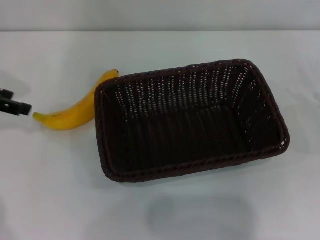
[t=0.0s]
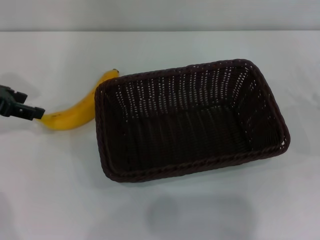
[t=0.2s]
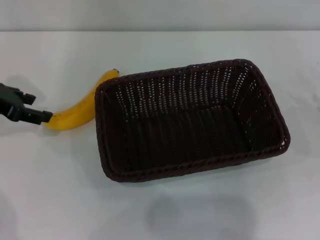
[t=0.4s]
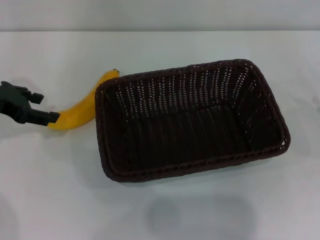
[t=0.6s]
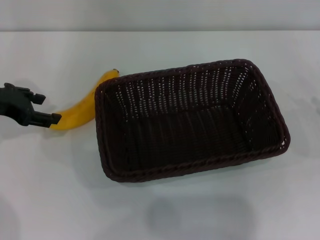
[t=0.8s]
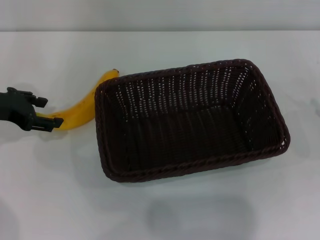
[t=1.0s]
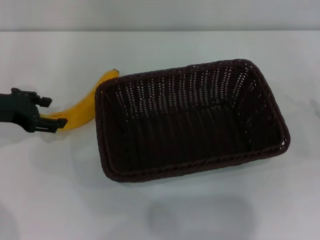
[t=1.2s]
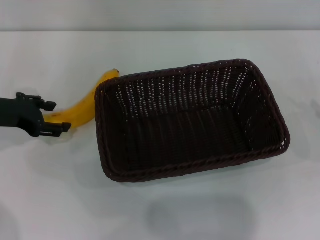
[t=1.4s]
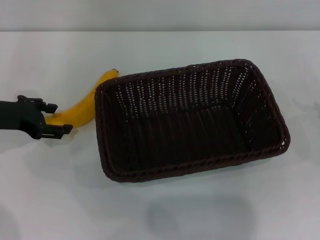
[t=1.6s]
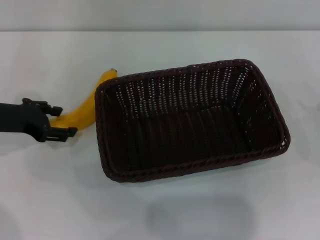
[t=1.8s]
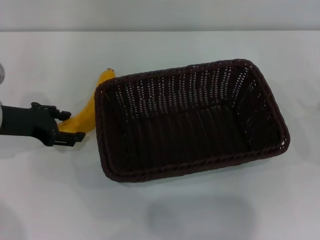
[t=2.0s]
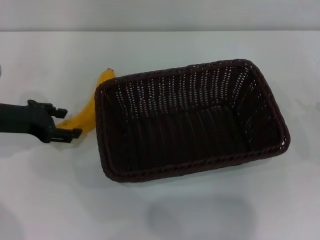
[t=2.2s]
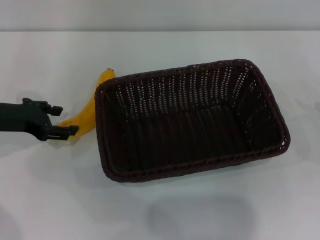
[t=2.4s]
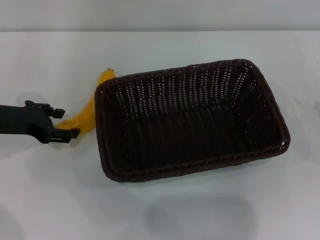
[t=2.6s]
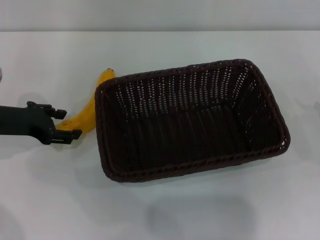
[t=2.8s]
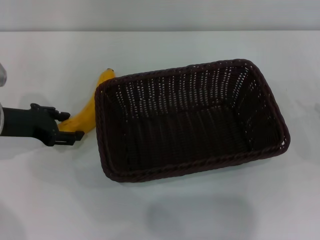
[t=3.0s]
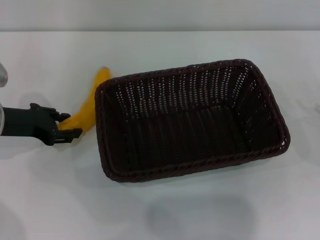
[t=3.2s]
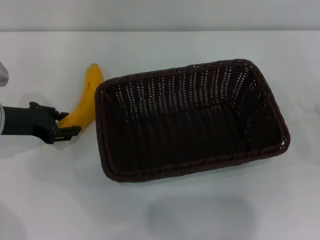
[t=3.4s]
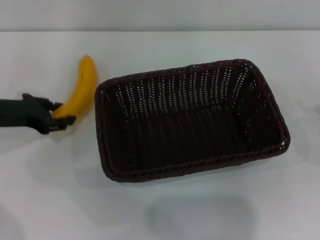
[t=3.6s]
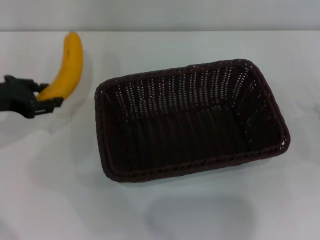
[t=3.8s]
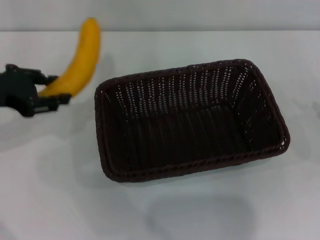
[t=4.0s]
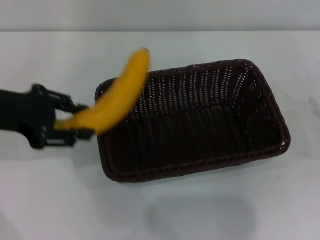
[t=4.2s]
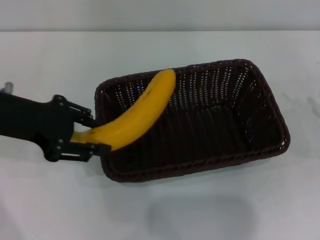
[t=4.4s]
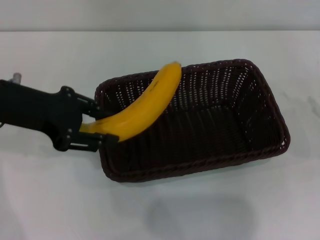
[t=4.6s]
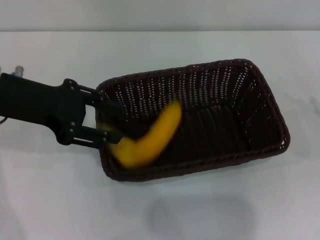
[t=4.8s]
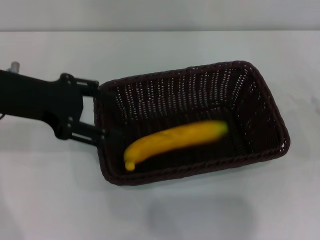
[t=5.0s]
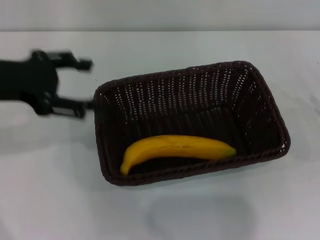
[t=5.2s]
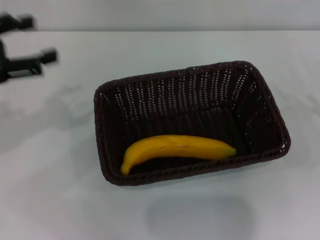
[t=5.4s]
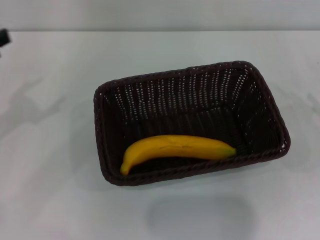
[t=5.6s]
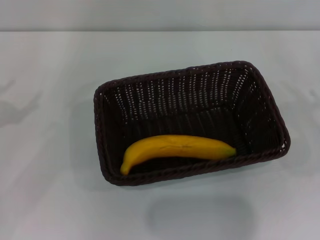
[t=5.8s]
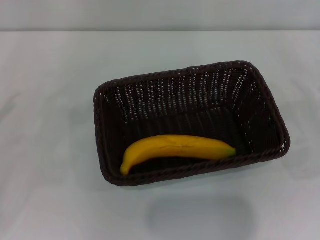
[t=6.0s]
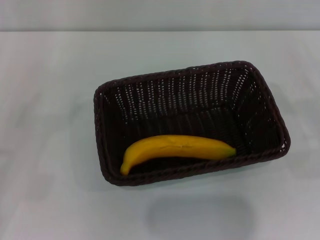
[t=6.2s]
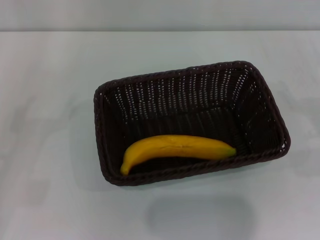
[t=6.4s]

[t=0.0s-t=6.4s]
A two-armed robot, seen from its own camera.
Step, t=0.0s to t=3.4s: Pick up the banana with the left gripper.
Step, t=3.8s to t=4.8s: Place the banana into the dark basket with the left gripper.
t=0.0s to t=1.6s: The left gripper goes about 10 cm downward.
t=1.6s to t=3.2s: The grippers move only a little.
t=3.2s to t=4.8s: The left gripper is displaced upward and to the right by about 15 cm, and closes its fingers.
t=4.8s to t=6.4s: The left gripper heads to the left, downward and backward, covering approximately 20 cm, and opens, while the right gripper opens up.

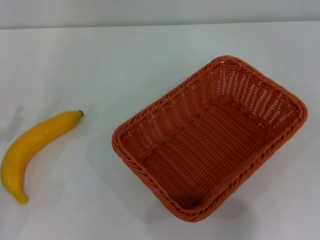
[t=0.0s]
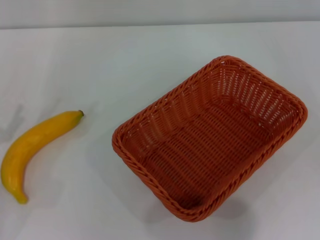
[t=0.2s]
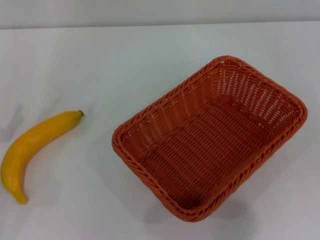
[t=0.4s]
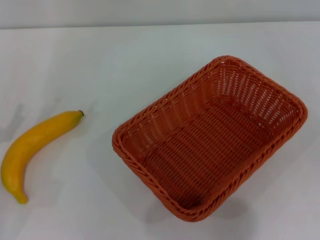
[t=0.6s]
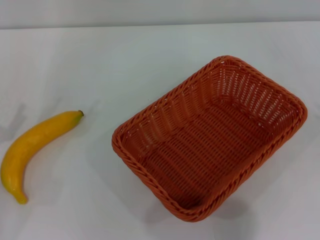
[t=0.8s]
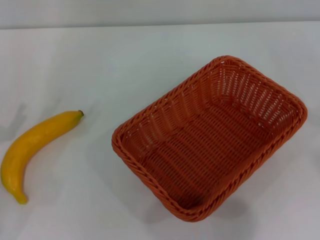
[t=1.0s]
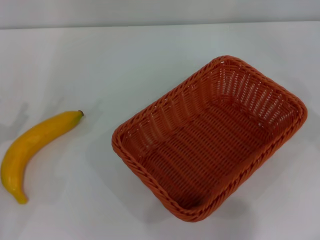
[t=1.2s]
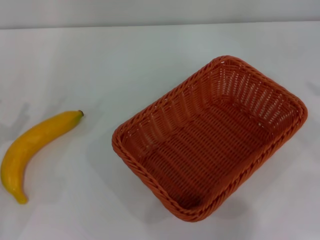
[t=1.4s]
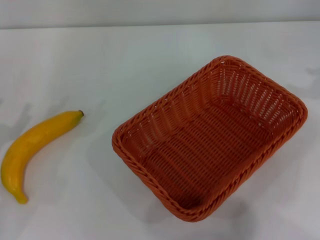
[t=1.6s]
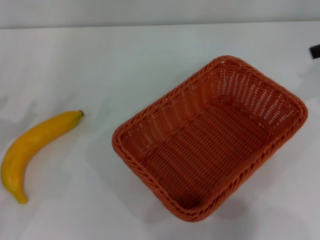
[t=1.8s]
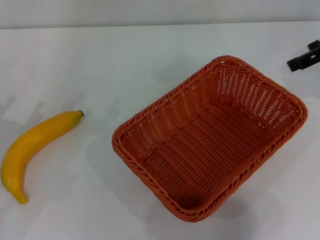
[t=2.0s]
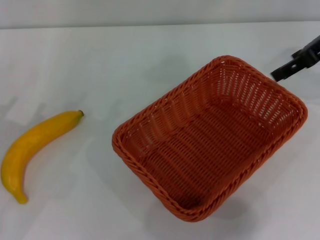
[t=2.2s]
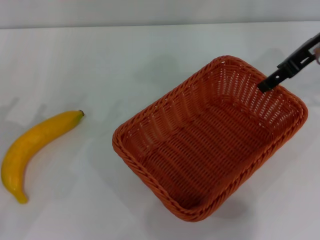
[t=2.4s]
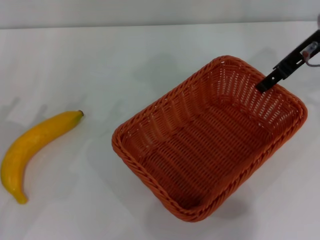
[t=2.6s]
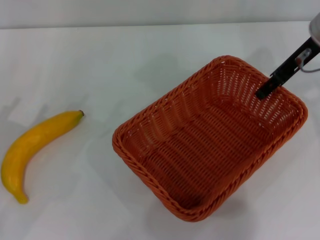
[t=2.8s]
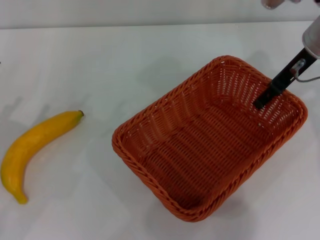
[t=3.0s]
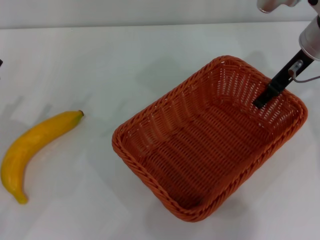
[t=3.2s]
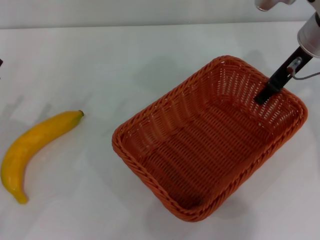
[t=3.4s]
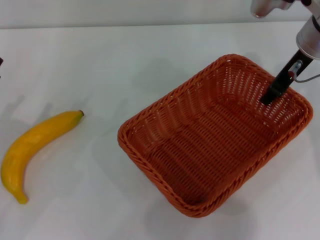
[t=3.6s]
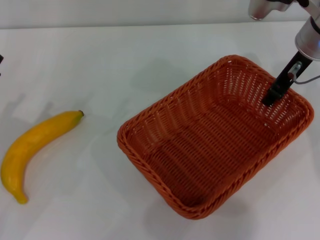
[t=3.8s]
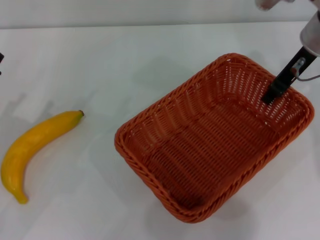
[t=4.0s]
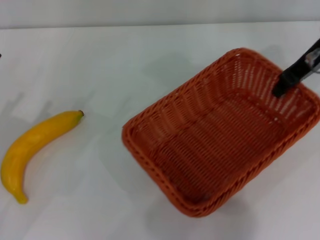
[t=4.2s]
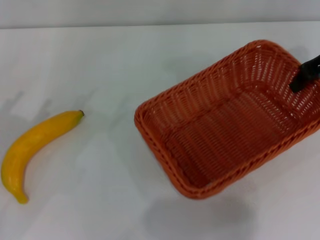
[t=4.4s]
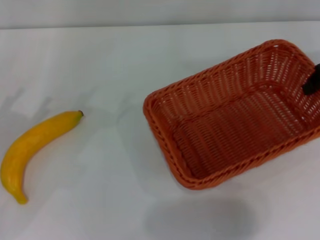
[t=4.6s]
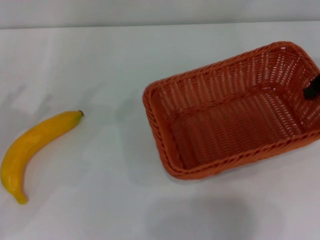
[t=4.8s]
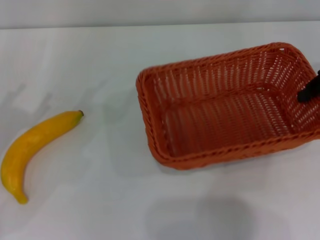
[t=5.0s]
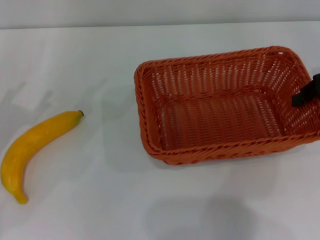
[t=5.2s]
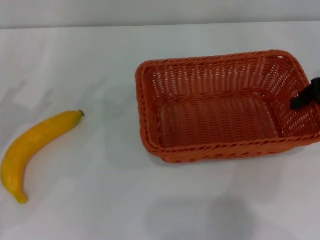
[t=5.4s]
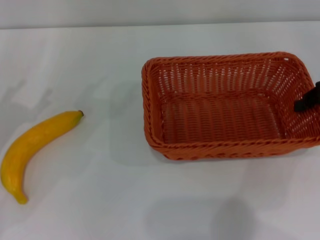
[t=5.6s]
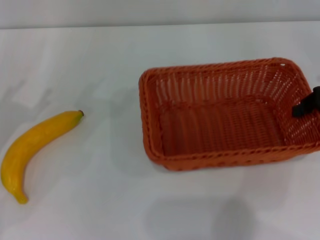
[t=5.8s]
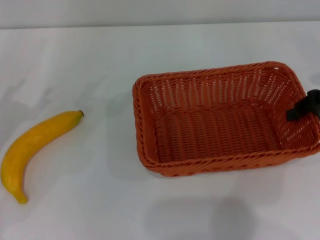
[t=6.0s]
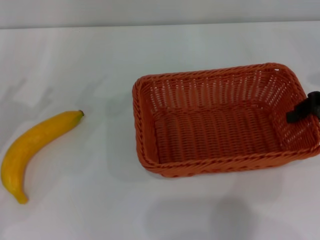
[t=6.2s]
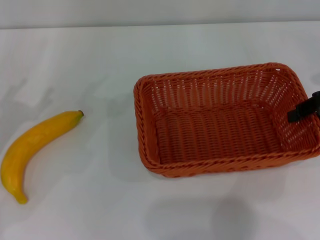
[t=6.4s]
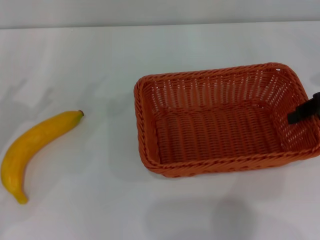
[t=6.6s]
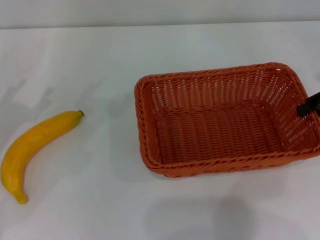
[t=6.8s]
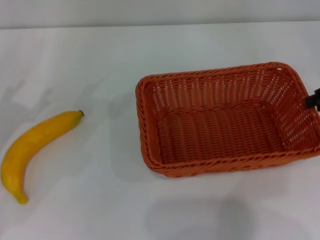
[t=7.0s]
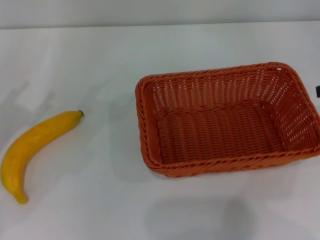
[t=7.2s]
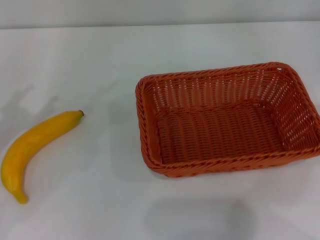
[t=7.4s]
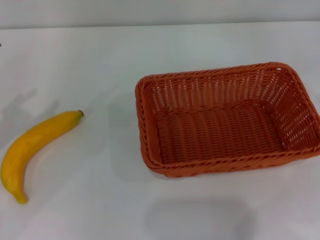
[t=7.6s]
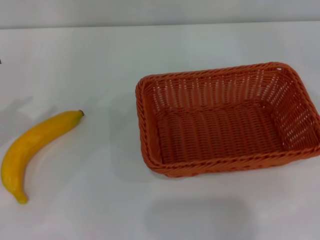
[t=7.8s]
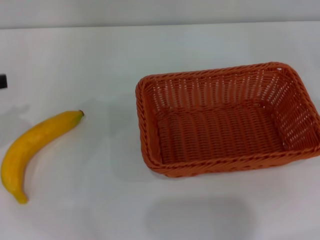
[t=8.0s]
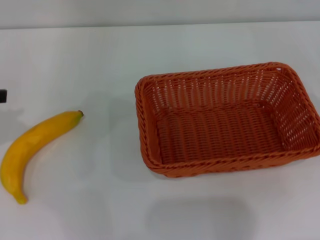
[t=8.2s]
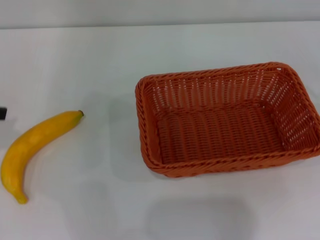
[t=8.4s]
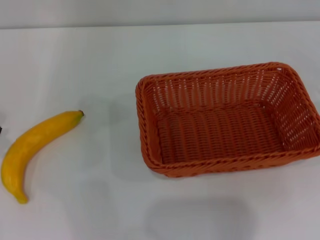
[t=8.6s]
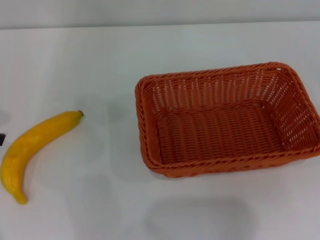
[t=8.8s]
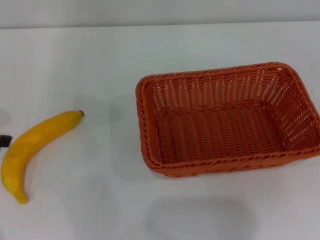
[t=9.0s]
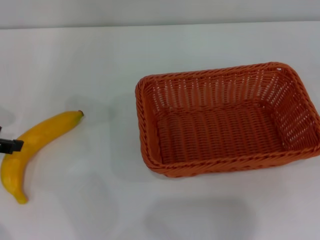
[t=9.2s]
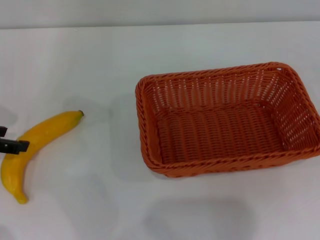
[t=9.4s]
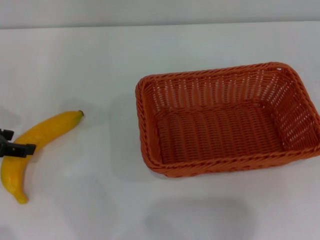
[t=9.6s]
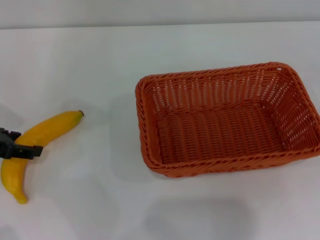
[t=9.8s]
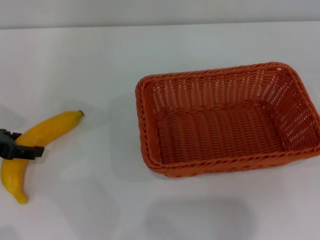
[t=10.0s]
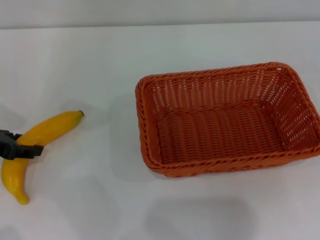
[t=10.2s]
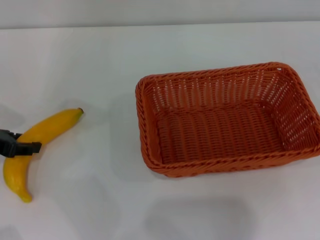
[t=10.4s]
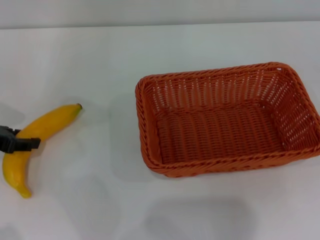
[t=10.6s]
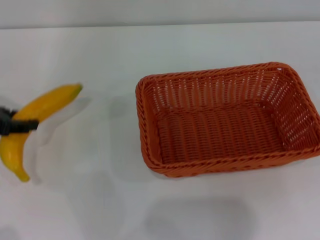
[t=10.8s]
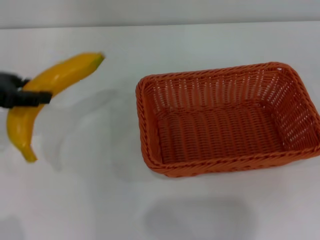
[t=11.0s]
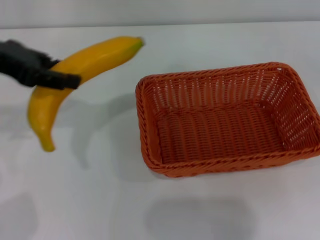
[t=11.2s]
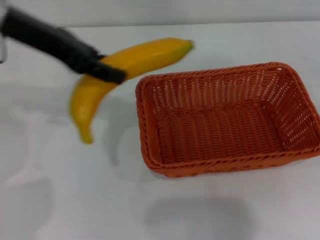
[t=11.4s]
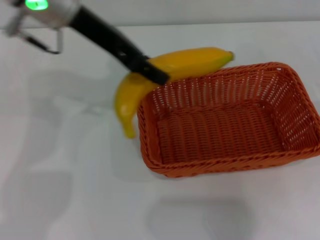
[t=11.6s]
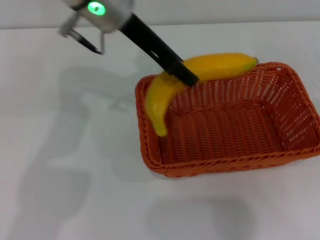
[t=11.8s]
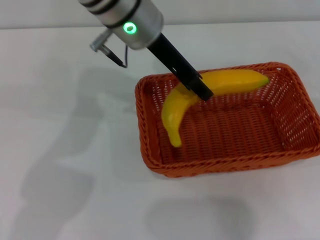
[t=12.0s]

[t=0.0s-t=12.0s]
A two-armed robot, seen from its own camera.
Step, t=0.0s to t=4.4s: Pick up the light basket with the right gripper.
Step, t=4.6s to t=7.0s: Place the light basket in the center of view with the right gripper.
Step, t=7.4s to t=10.8s: Pick up the banana with the left gripper.
t=1.6s to t=3.0s: The right gripper travels to the left, forward and downward by some 20 cm.
t=3.0s to t=4.4s: The right gripper travels to the right by some 5 cm, and closes its fingers.
t=4.4s to t=6.0s: The right gripper is displaced downward and backward by approximately 10 cm.
t=6.0s to t=7.6s: The left gripper moves upward, approximately 5 cm. Meanwhile the right gripper goes some 10 cm to the right and upward.
t=9.0s to t=10.4s: The left gripper shifts some 5 cm downward.
t=10.4s to t=12.0s: The left gripper travels to the right and upward by approximately 30 cm, and closes.

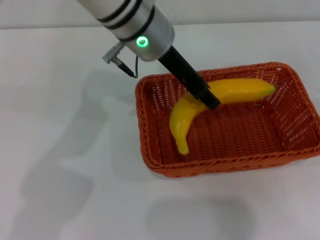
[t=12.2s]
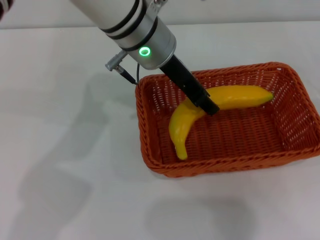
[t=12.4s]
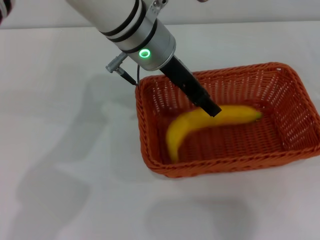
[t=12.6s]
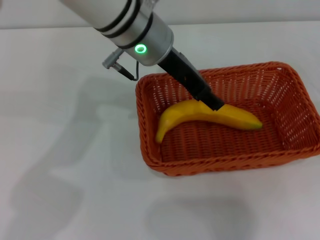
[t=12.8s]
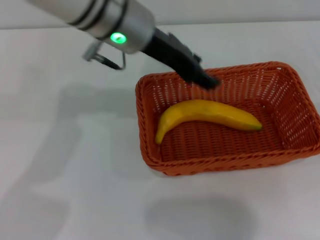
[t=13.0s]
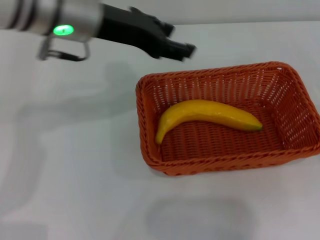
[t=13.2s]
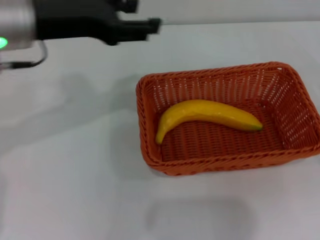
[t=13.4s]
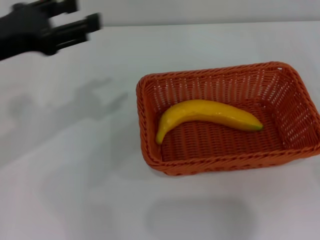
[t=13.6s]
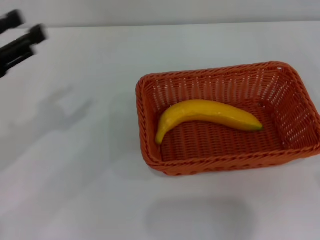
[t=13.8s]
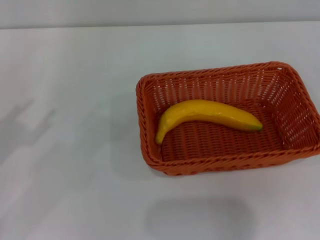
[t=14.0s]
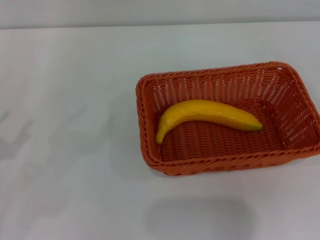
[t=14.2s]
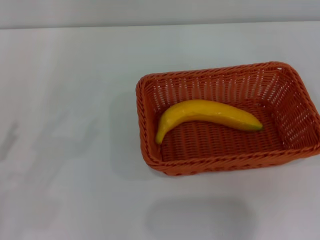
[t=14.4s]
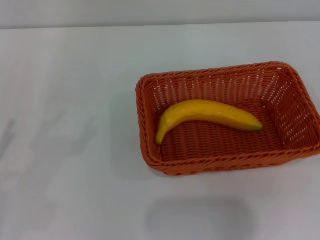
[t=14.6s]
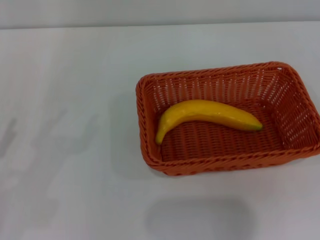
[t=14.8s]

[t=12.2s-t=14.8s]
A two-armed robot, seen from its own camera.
t=12.2s to t=13.4s: The left gripper moves to the left, roughly 15 cm, and opens its fingers.
t=13.4s to t=14.8s: The right gripper travels downward by some 5 cm. Meanwhile the left gripper goes some 30 cm to the left, downward and backward.
